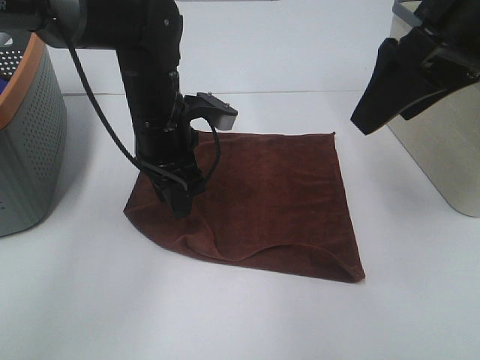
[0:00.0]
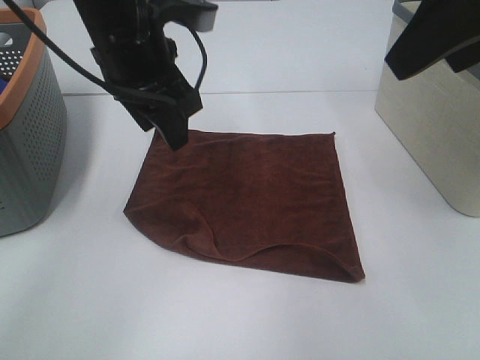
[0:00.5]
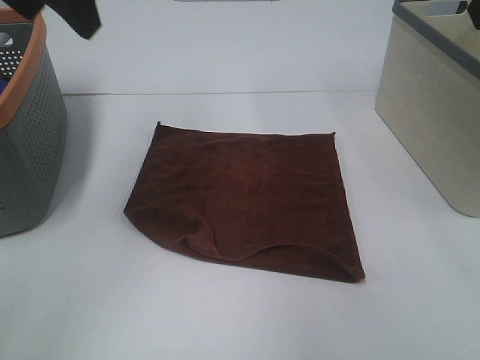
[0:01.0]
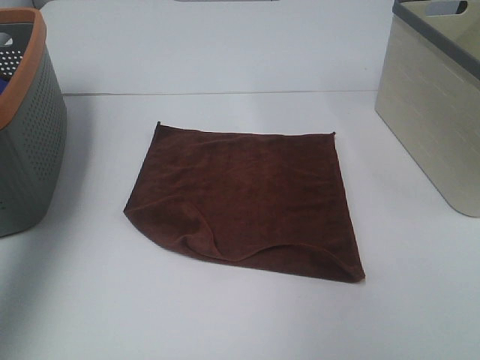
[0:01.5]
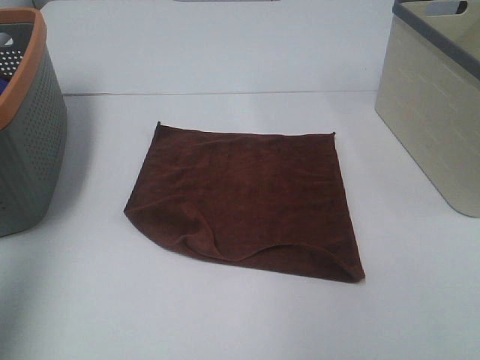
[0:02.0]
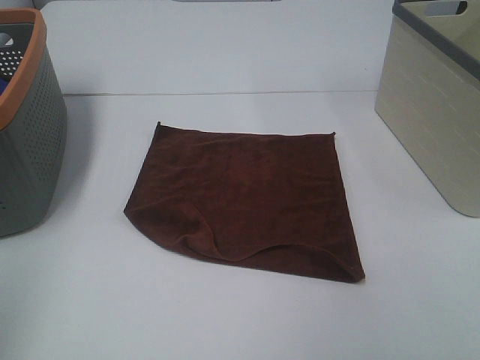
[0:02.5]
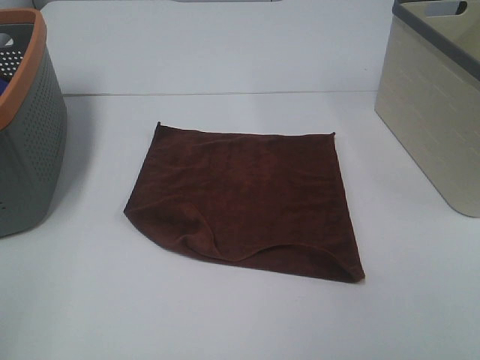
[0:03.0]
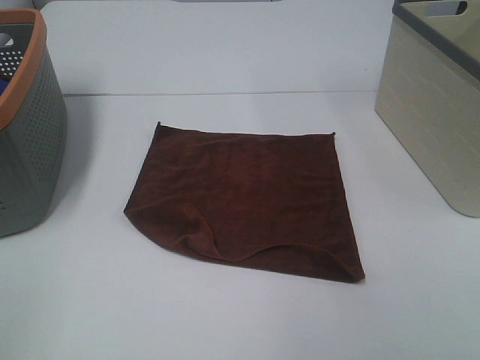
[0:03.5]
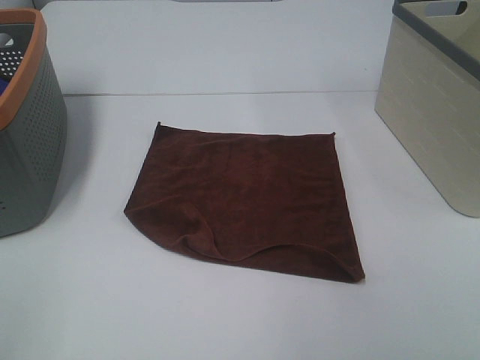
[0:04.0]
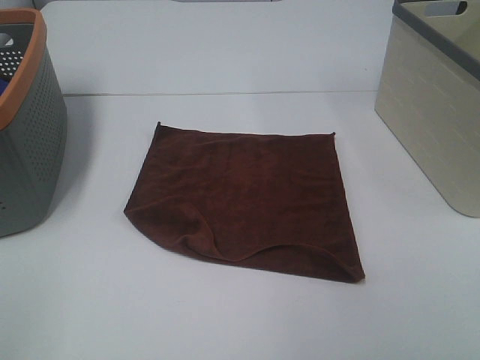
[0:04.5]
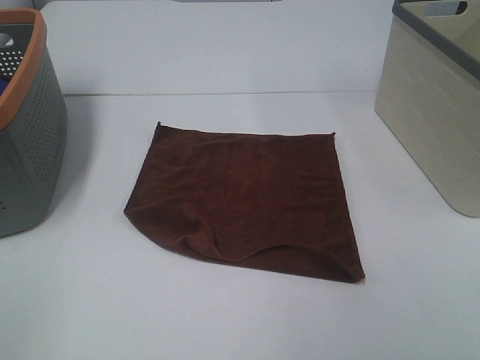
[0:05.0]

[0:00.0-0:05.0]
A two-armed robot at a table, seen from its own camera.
Task of the whole recording: Remove the towel and place it.
0:00.0 to 0:02.5: The left gripper shifts some 40 cm backward, to the left and upward. Meanwhile the right gripper travels backward by roughly 30 cm.

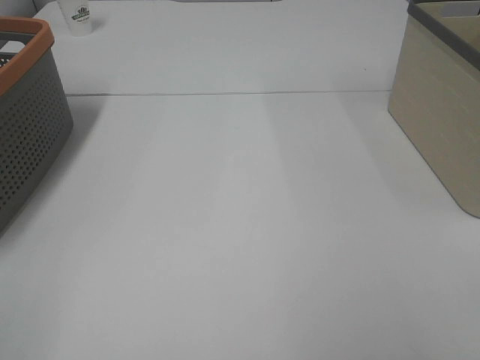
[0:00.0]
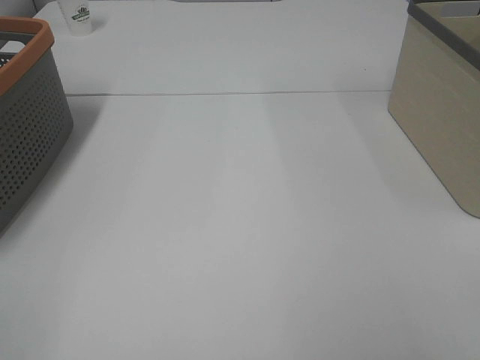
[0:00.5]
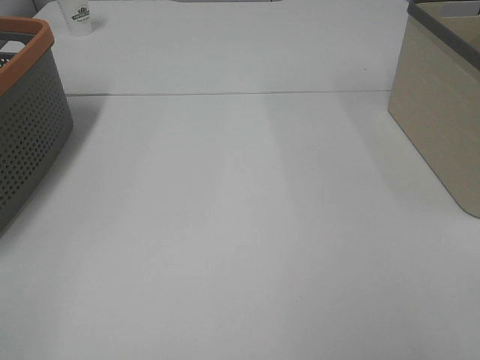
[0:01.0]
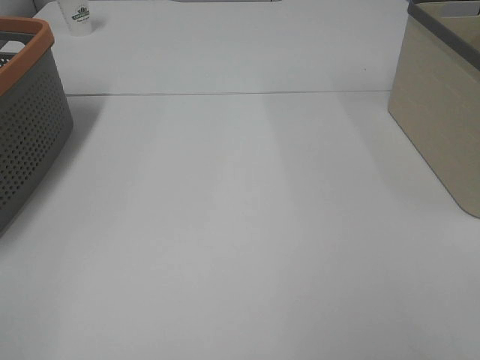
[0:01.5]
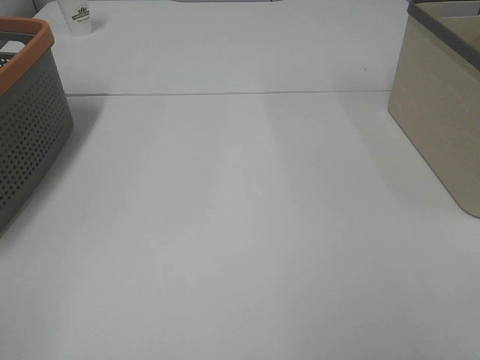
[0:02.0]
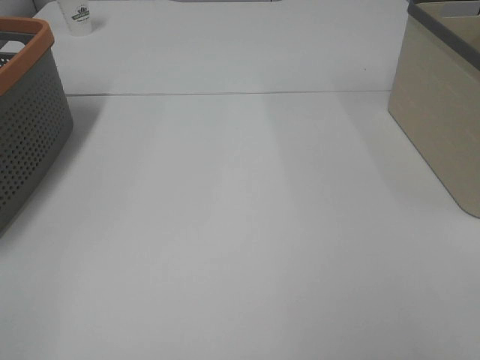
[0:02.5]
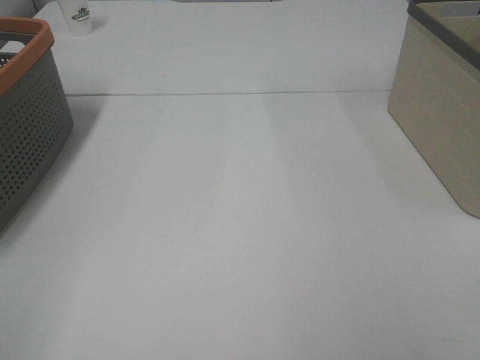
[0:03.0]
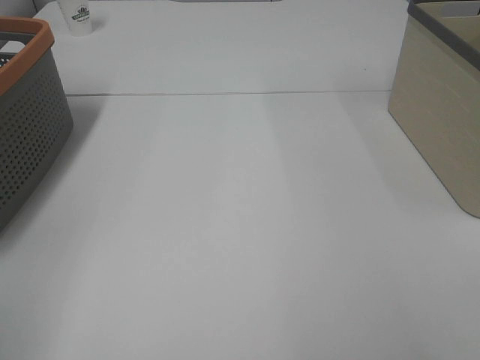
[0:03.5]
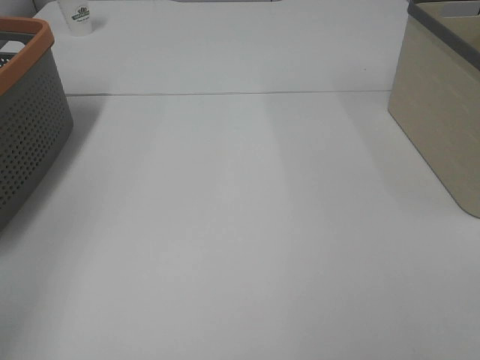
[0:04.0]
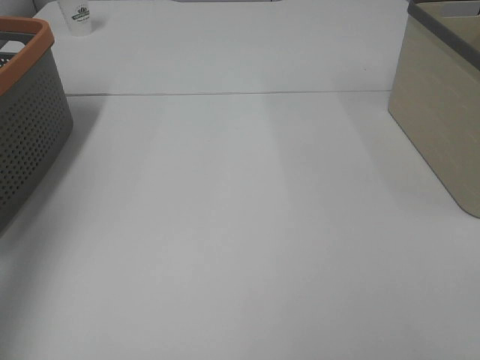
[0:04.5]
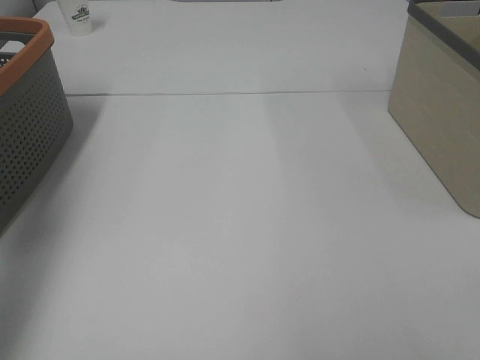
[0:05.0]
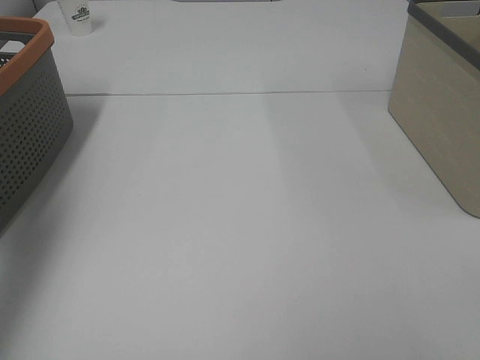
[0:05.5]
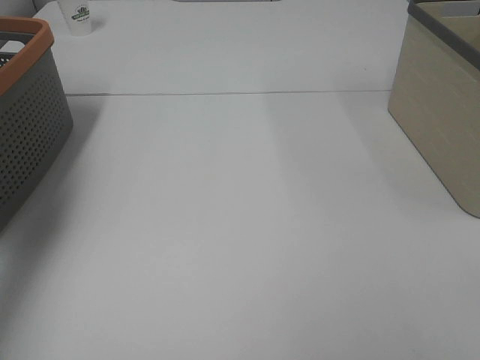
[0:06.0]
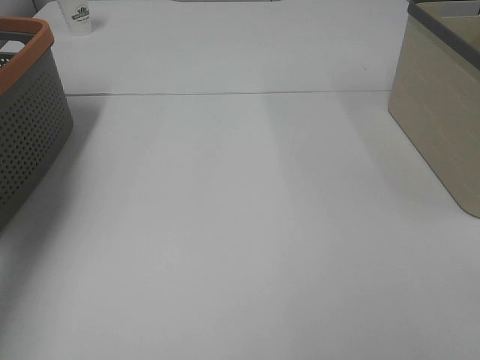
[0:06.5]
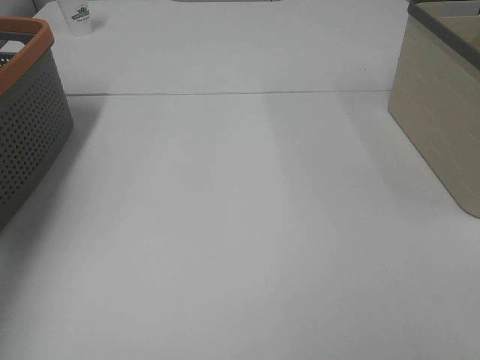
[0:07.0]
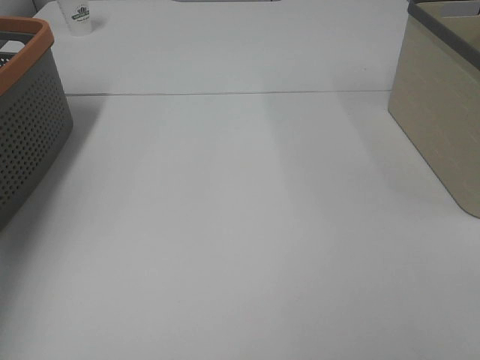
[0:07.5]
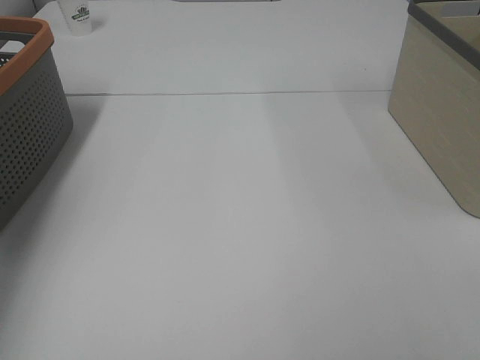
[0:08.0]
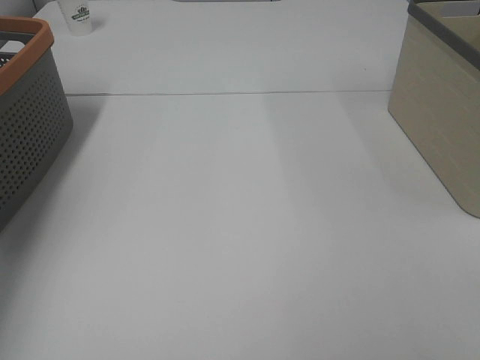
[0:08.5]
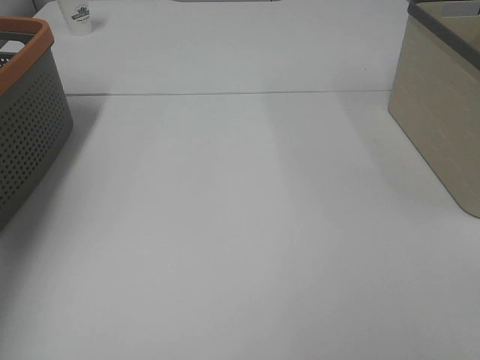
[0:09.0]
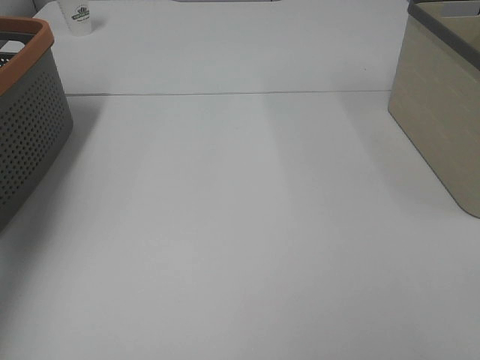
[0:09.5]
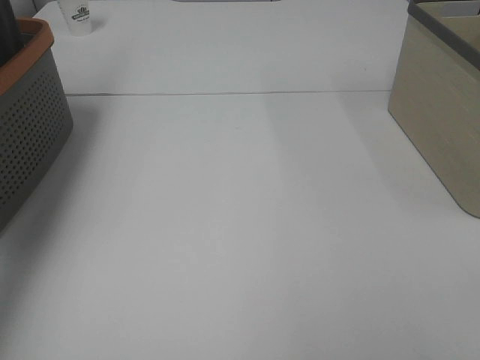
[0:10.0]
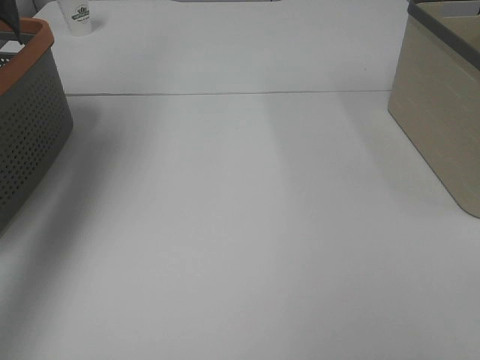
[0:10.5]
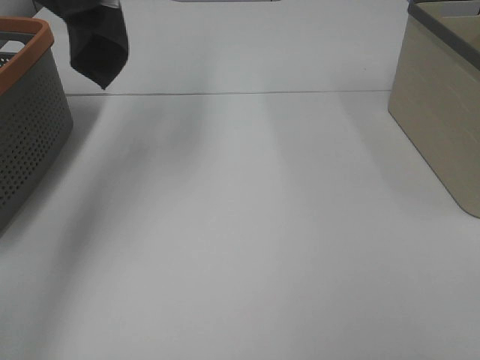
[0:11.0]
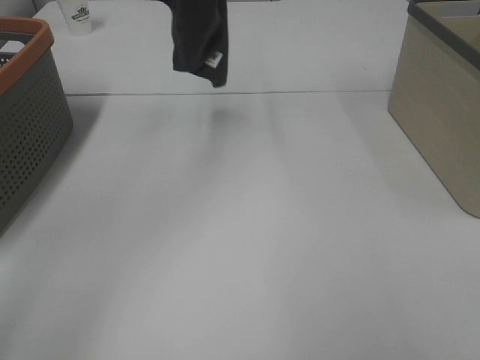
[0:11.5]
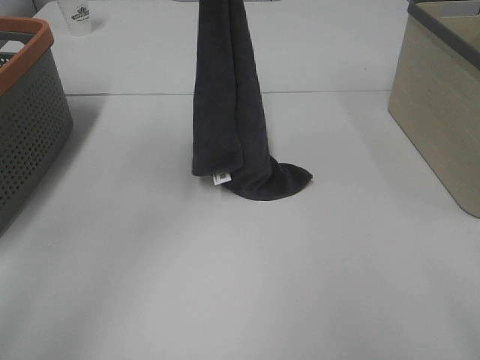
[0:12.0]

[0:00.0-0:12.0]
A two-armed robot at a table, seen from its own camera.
Task of the whole recording: Remove the towel and place it.
0:00.0 to 0:02.0: The two grippers keep their place.
0:04.0 to 0:06.0: The left gripper goes about 30 cm forward.
0:06.0 to 0:08.0: The left gripper goes approximately 10 cm downward.
0:08.0 to 0:10.0: The left gripper travels upward by approximately 25 cm, and closes.
0:10.0 to 0:12.0: The right gripper goes about 5 cm forward. The left gripper travels to the right and downward by roughly 25 cm.

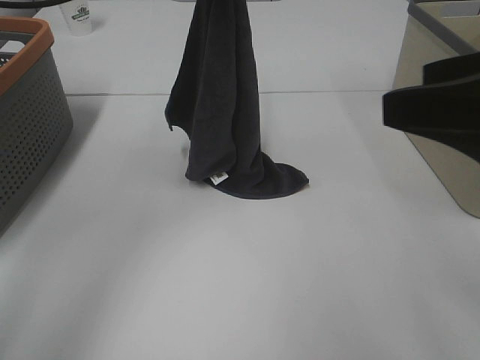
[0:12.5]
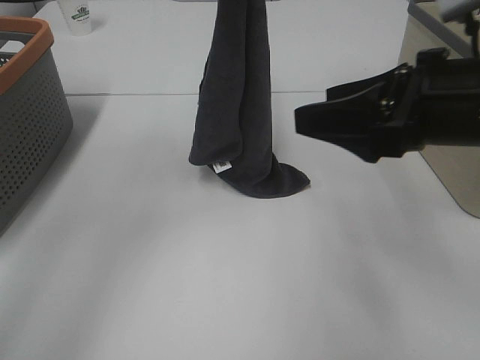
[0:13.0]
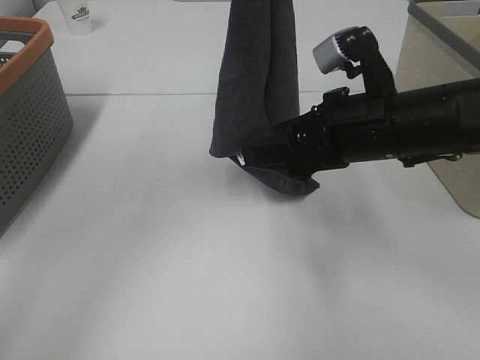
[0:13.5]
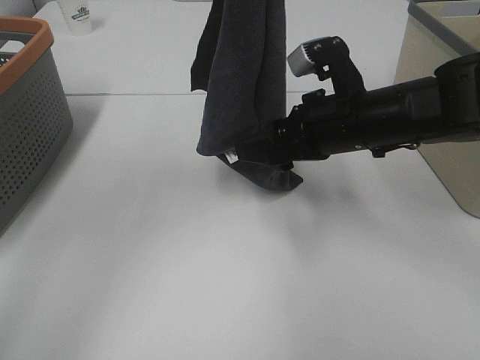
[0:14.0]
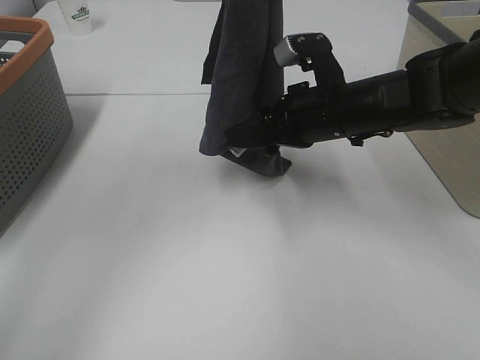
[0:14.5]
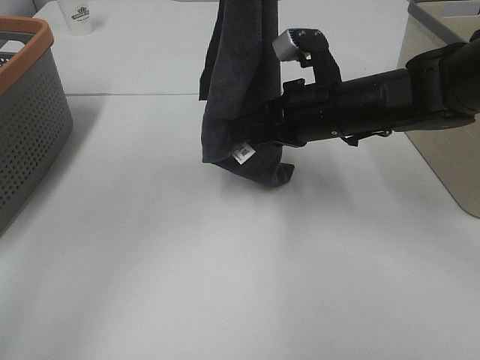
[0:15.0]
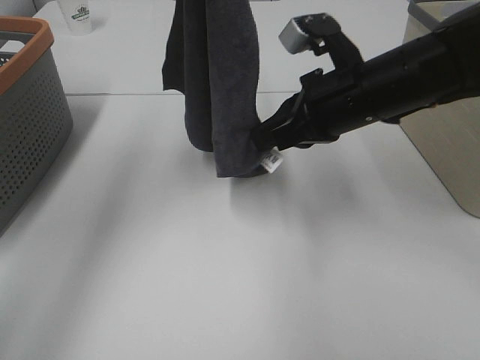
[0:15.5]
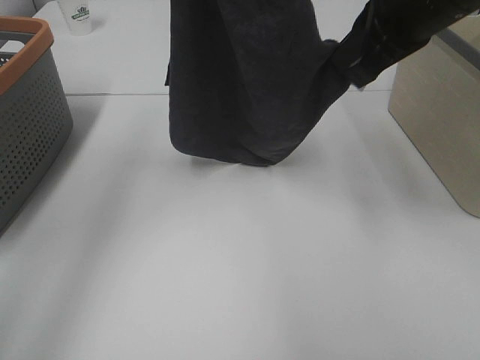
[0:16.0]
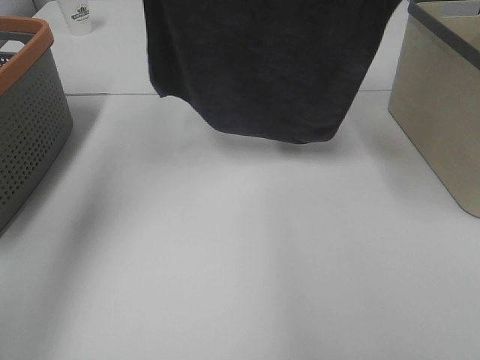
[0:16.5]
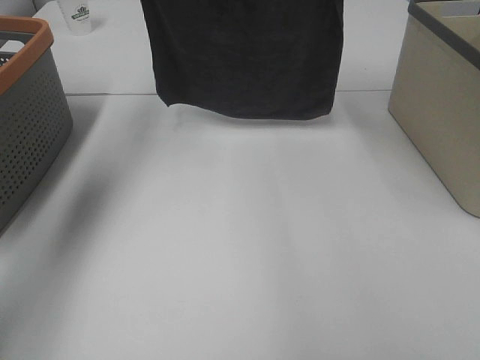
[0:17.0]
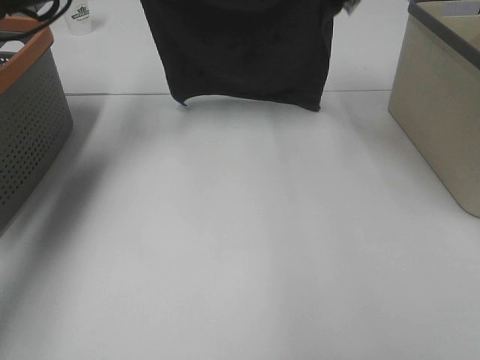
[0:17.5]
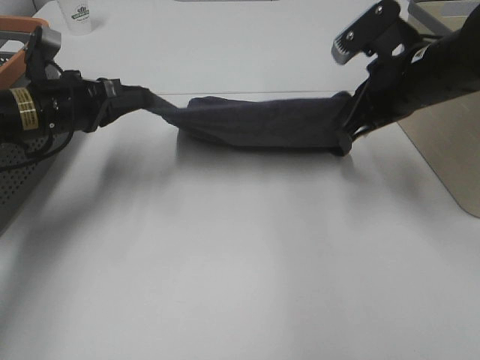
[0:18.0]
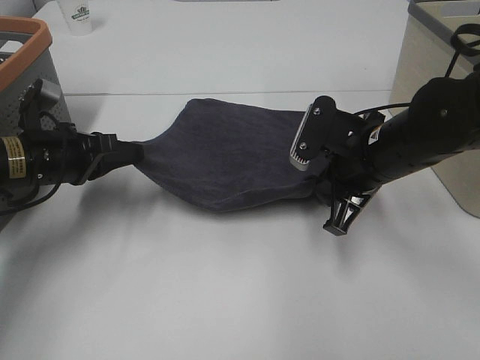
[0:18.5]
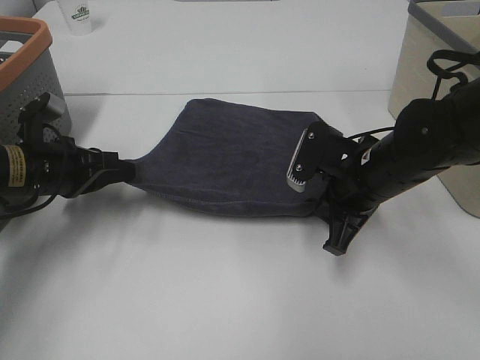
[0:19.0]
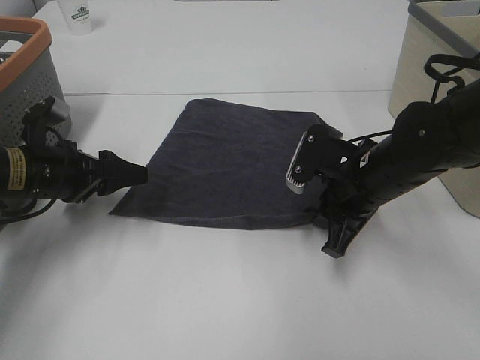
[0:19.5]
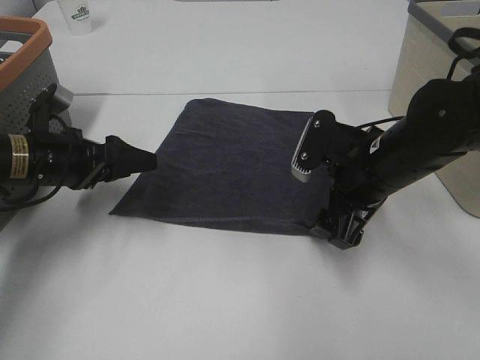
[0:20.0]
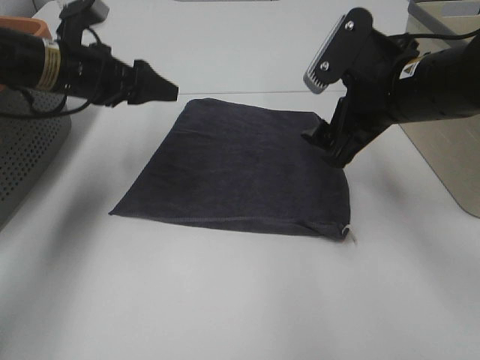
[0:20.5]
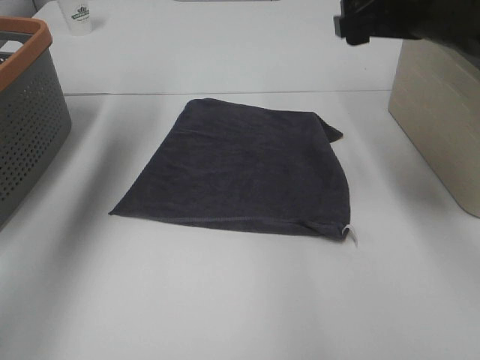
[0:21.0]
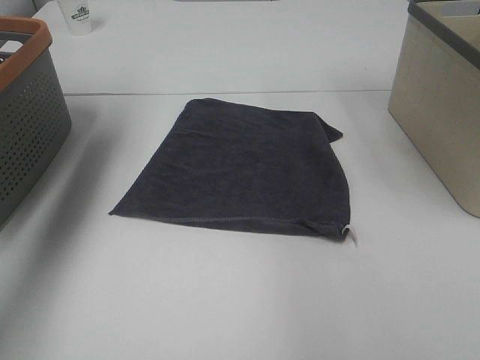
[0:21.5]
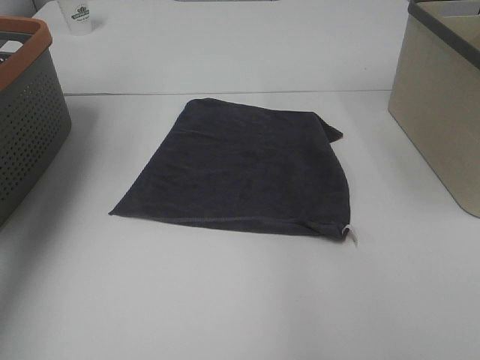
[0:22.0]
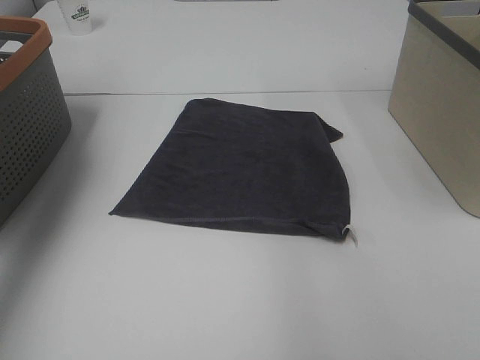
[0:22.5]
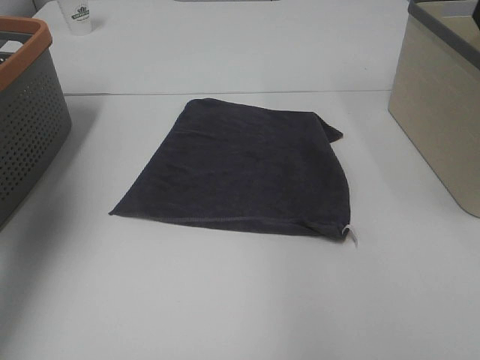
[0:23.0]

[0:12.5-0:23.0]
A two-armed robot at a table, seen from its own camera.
Task of the whole recording: Remove the towel and place it.
Step, 0:14.0 to 0:15.0: Left hand: spread the grey towel flat on the table.
Step, 0:14.0 to 0:15.5: Right hand: spread the grey towel flat on the table.
0:12.5 to 0:14.5: The right gripper goes some 25 cm forward, downward and to the left.
0:14.5 to 0:16.5: The right gripper travels upward by roughly 20 cm, and closes its fingers. Meanwhile the left gripper is displaced to the left by about 10 cm.
0:16.5 to 0:19.0: Both grippers travel together downward, some 25 cm.
0:19.0 to 0:21.0: The right gripper is displaced upward by approximately 15 cm, and opens up; the left gripper travels upward and forward by roughly 25 cm, and opens its fingers.
0:21.0 to 0:23.0: The left gripper heads backward, to the left and upward, covering some 20 cm. Meanwhile the right gripper goes approximately 15 cm upward and to the right.
